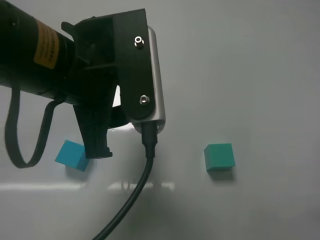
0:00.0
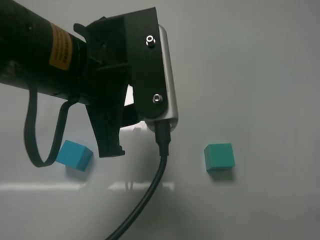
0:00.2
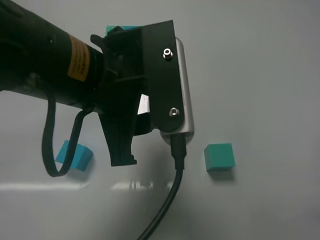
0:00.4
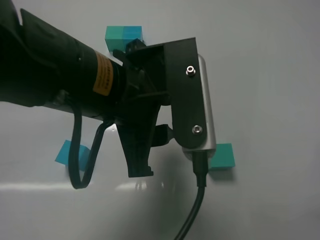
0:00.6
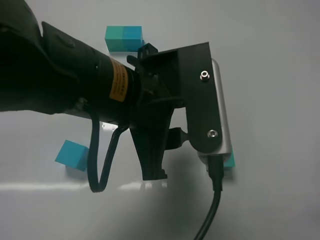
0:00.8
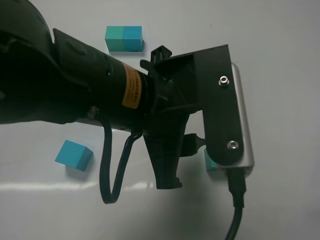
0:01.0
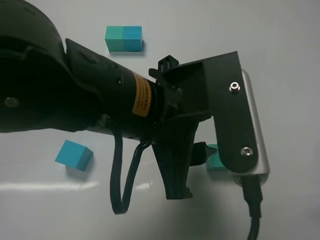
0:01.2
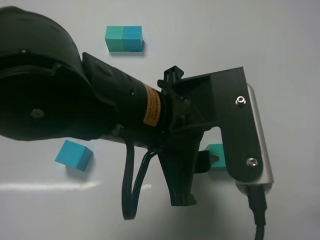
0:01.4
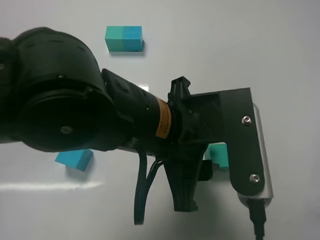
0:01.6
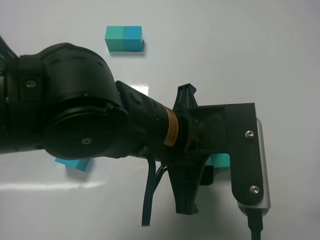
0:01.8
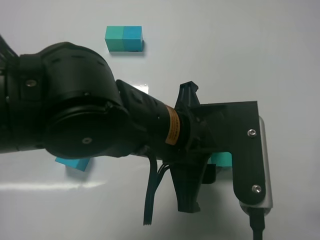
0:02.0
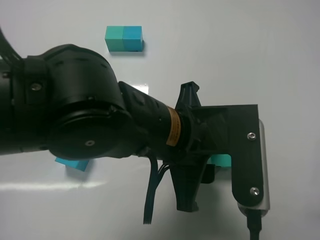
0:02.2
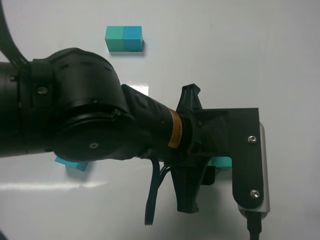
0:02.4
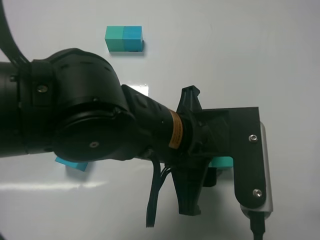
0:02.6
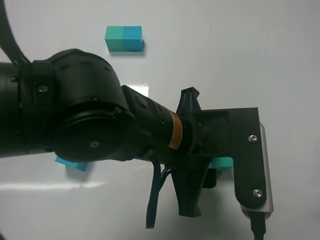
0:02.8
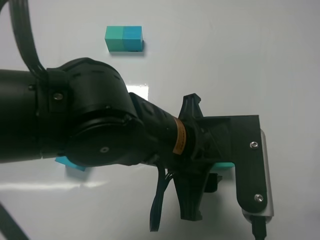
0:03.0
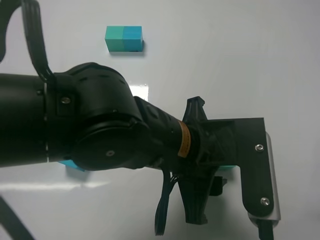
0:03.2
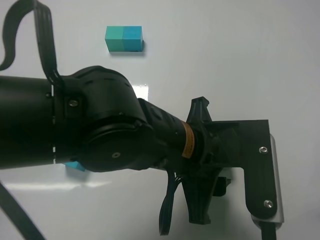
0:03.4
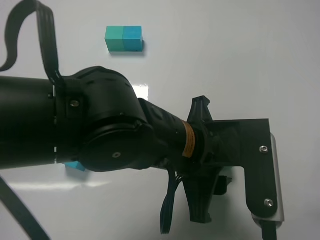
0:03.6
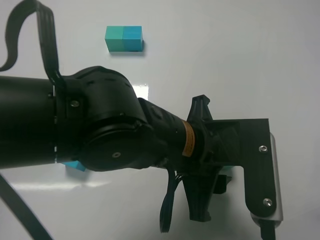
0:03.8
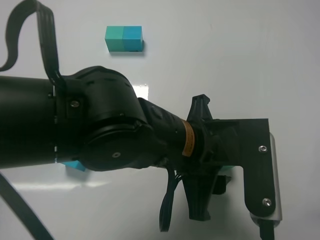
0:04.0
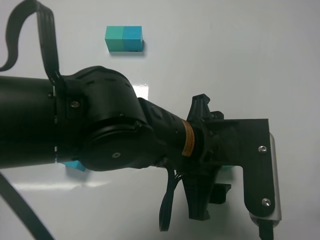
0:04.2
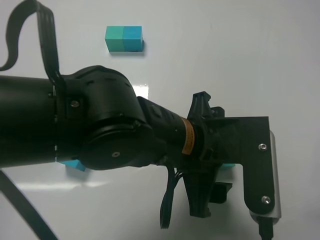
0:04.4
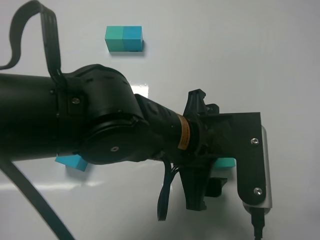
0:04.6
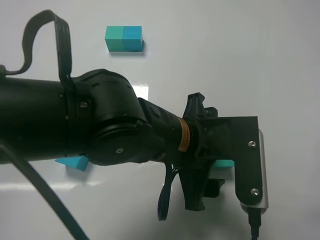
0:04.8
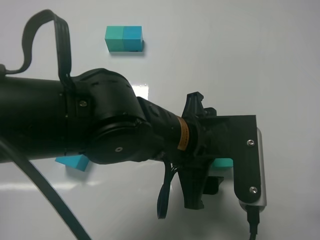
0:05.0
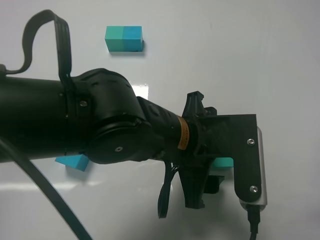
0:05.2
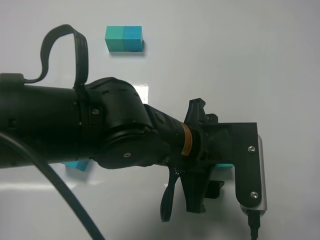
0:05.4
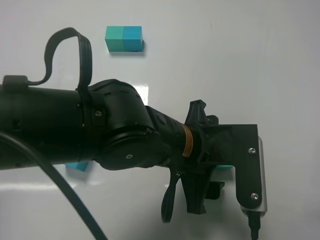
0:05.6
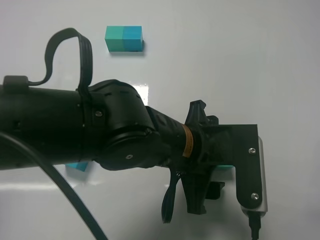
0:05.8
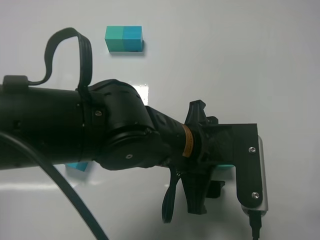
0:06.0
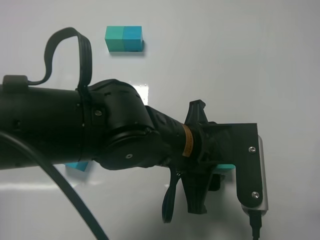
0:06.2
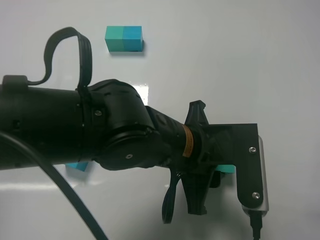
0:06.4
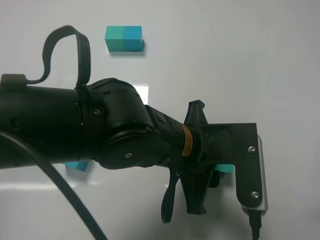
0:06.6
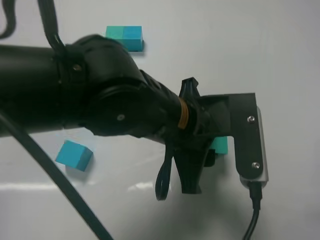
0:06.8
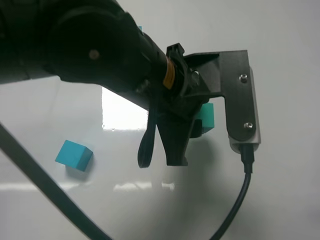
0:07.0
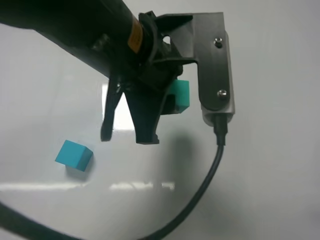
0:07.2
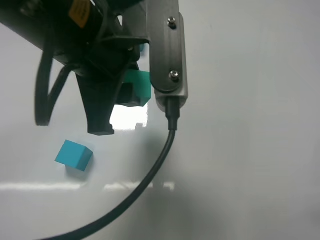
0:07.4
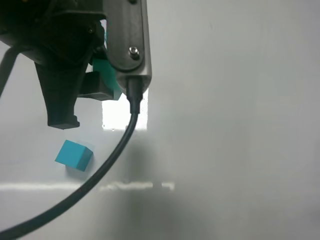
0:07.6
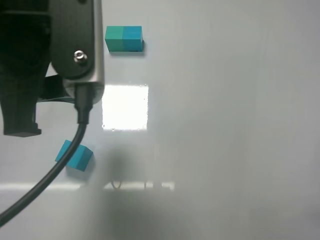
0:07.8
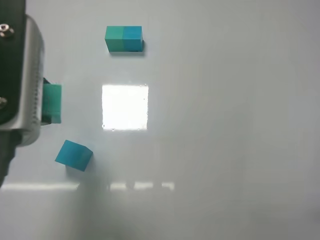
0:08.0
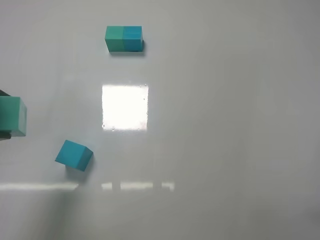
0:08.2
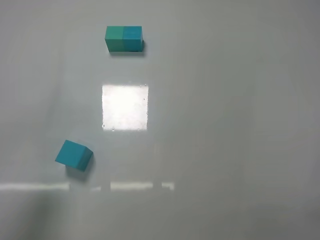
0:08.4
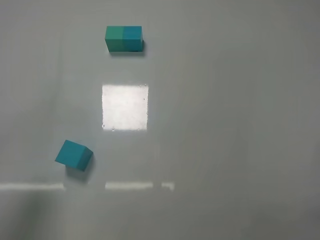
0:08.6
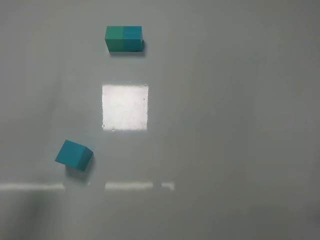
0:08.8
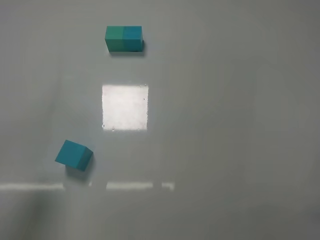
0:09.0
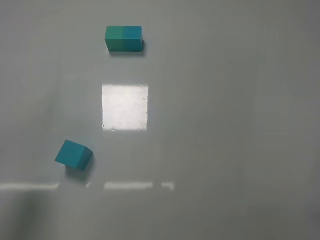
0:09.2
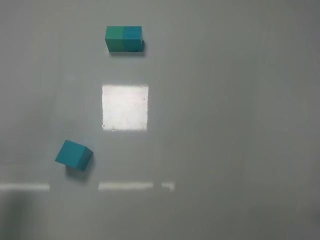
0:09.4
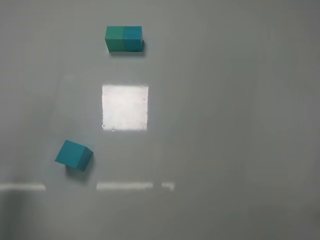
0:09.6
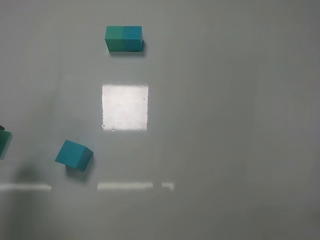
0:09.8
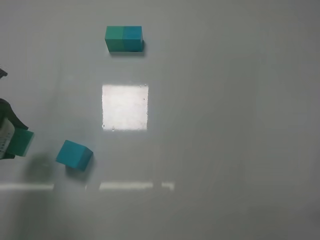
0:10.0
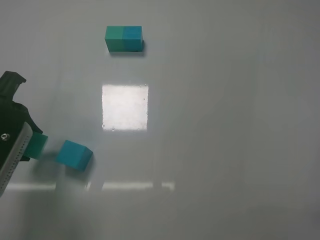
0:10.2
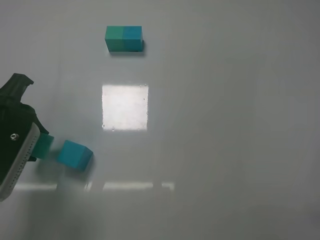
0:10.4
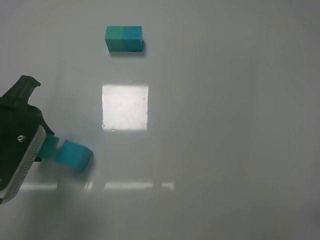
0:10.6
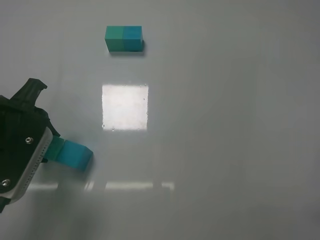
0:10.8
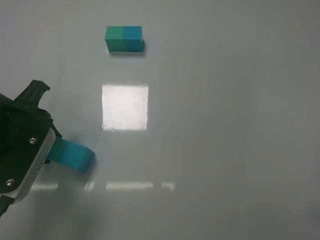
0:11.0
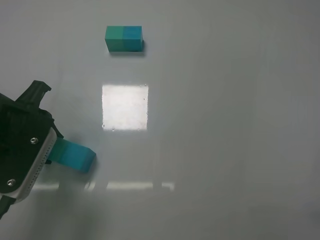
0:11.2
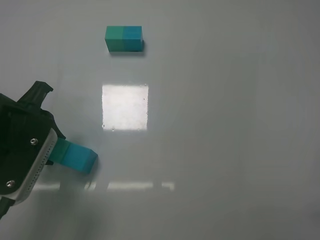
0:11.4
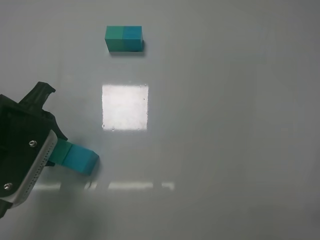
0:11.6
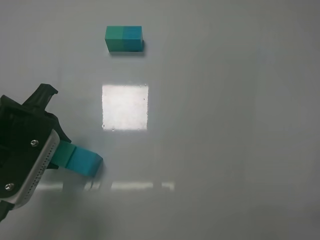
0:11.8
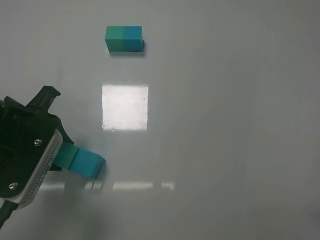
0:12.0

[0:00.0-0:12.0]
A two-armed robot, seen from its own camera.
Task of the whole recording: According to the building block template in front, assemble the scattered blocks together.
Step, 0:00.0 to 0:06.4: Grasp the green block with left gripper.
0:00.0 to 0:01.6: The left gripper is displaced to the right and downward by about 10 cm.
0:03.0 to 0:04.4: The left gripper opens up.
0:04.4 to 0:06.0: The grippers make only small movements.
0:06.0 to 0:07.6: The left gripper is displaced upward and to the left by approximately 20 cm, and closes up.
0:07.6 to 0:09.0: The left gripper is displaced to the left and backward by about 15 cm.
0:09.0 to 0:10.4: The left gripper moves forward and downward, some 10 cm.
0:10.4 to 0:12.0: There are only small adjustments of the grippers.

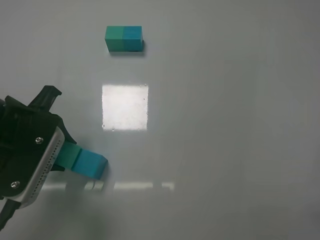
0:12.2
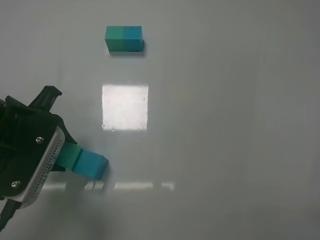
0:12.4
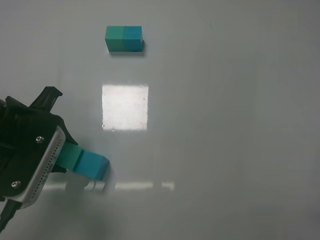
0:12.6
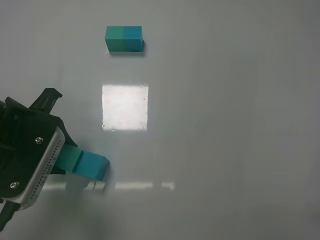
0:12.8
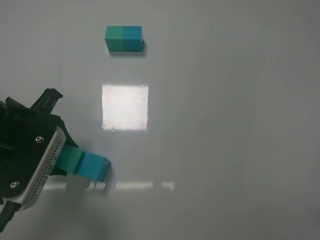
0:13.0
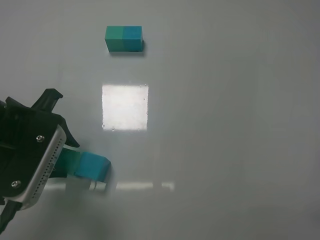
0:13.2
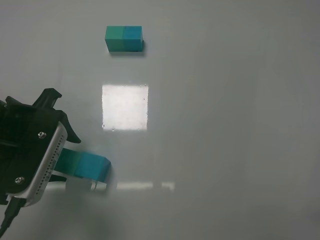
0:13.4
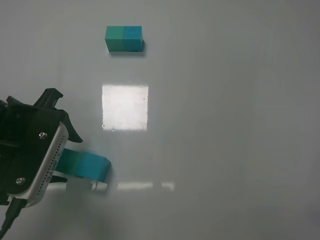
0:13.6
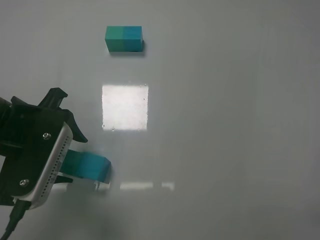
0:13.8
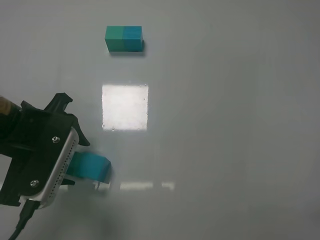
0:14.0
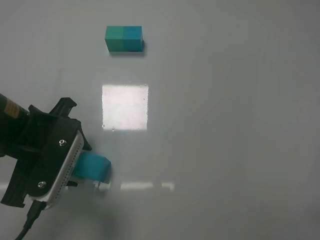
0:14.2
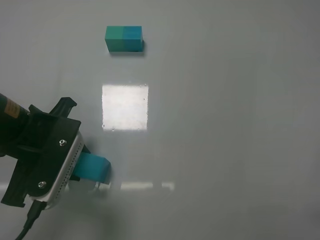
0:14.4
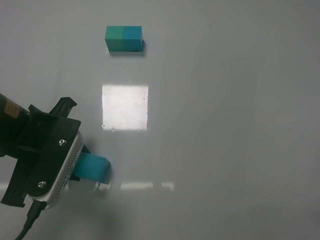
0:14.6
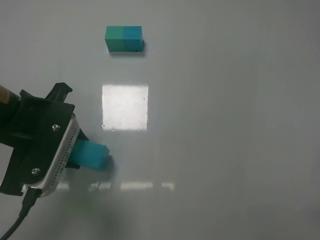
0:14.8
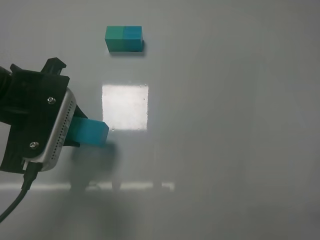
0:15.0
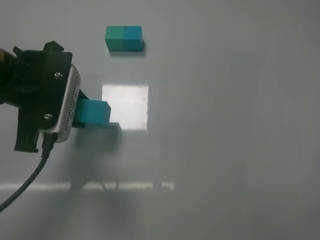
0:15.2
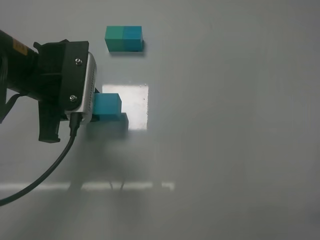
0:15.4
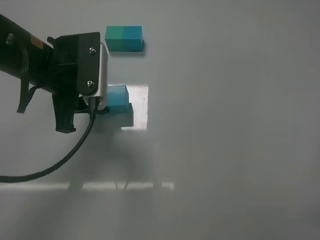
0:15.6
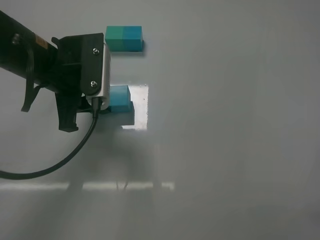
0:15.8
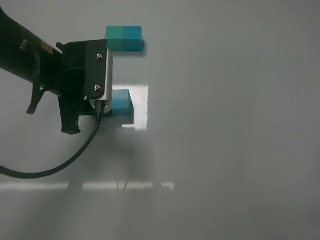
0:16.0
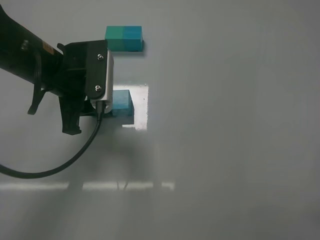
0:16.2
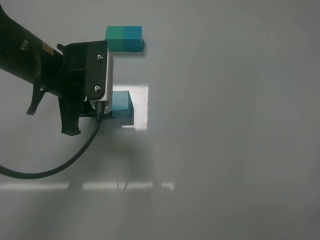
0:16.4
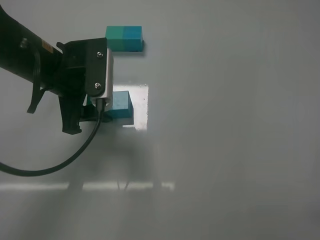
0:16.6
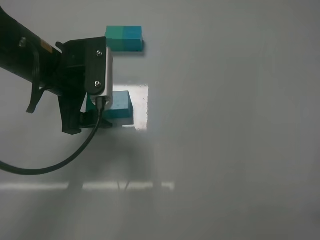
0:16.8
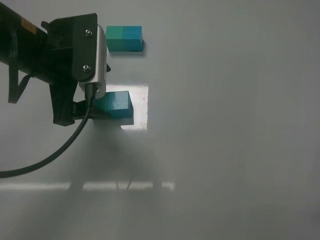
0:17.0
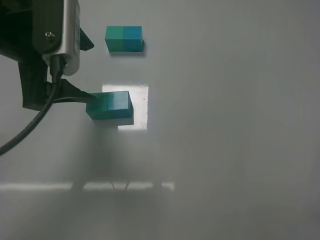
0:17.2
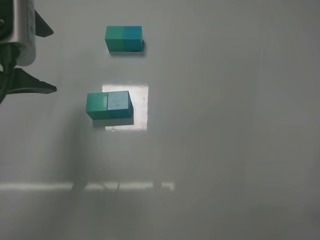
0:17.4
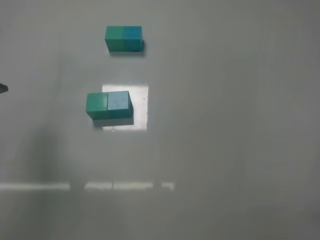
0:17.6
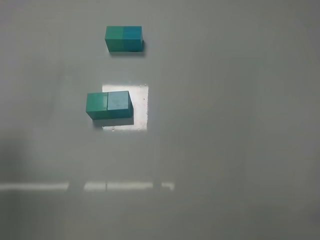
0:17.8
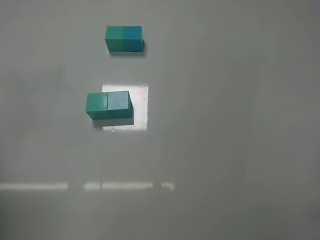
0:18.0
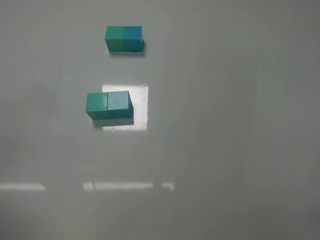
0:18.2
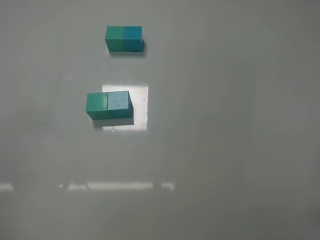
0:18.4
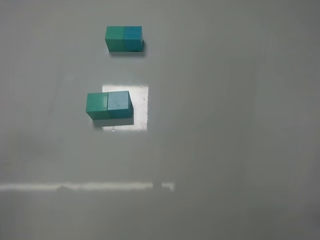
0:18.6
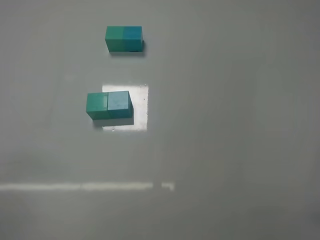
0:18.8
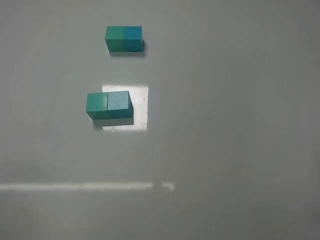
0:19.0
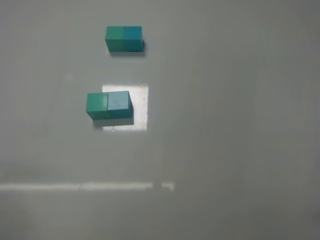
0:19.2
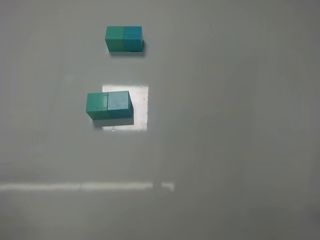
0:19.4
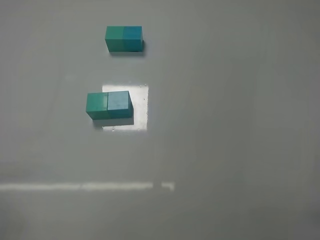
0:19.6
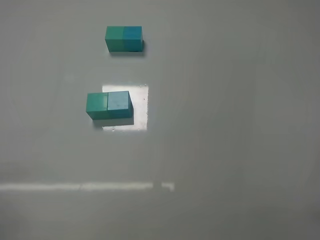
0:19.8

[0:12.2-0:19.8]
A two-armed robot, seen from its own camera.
Task of the whole recording: According to the building block template in front, assemble the scattered blocks together.
Step, 0:13.4 to 0:16.8: Put the blue cube and green cube in the center of the table with the left gripper.
0:12.2 to 0:13.8: The left gripper opens.
0:13.8 to 0:15.2: The left gripper ends up roughly 5 cm from where it was, and closes.
0:15.2 to 0:16.8: The left gripper ends up roughly 5 cm from where it was, and opens its fingers.
0:16.8 to 0:18.2: The left gripper moves backward and to the left, roughly 25 cm.

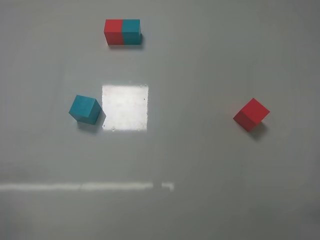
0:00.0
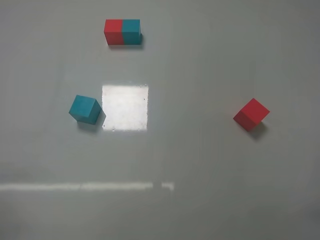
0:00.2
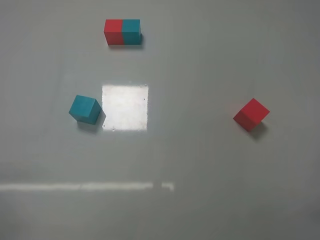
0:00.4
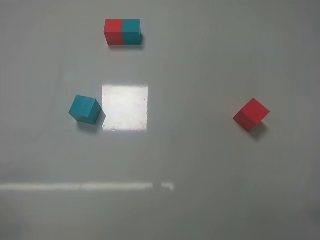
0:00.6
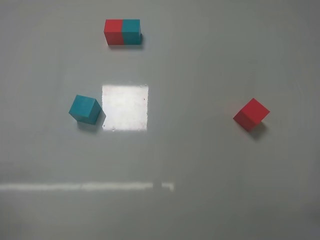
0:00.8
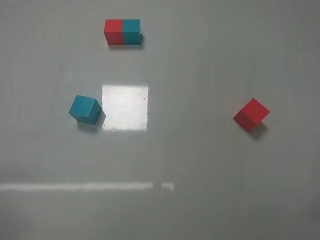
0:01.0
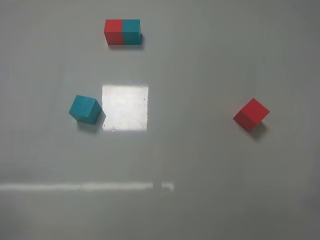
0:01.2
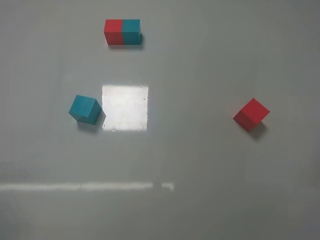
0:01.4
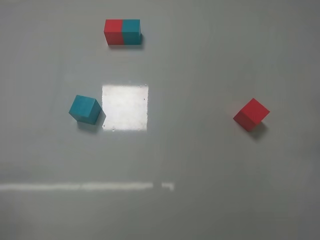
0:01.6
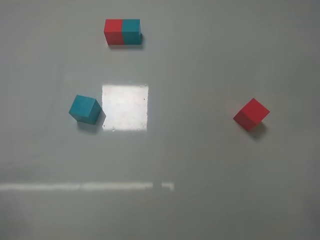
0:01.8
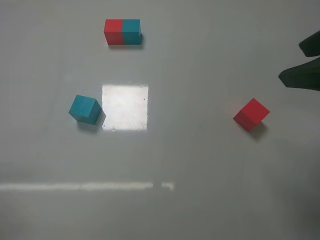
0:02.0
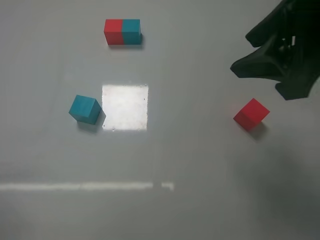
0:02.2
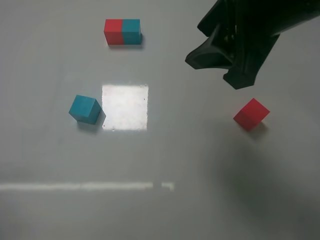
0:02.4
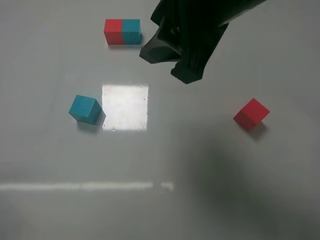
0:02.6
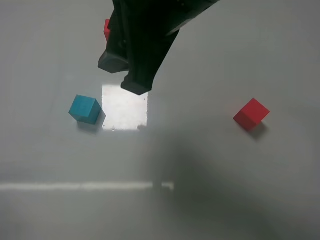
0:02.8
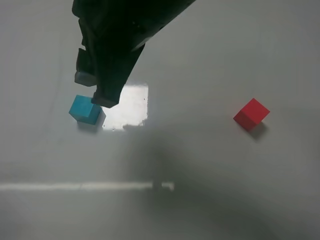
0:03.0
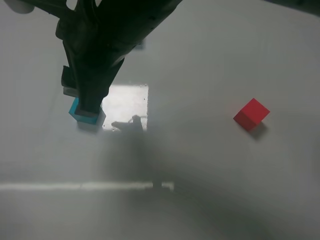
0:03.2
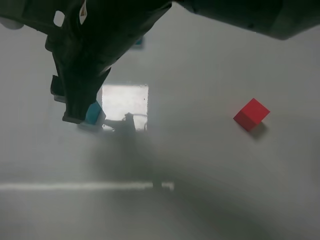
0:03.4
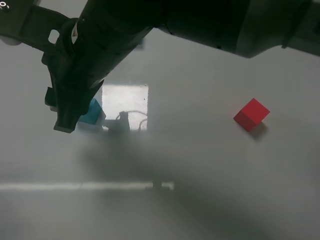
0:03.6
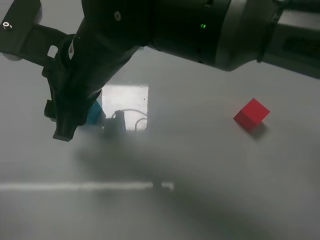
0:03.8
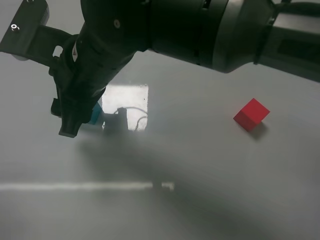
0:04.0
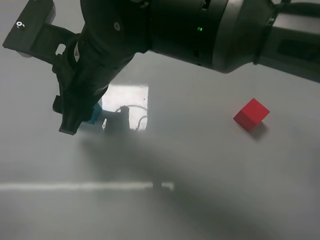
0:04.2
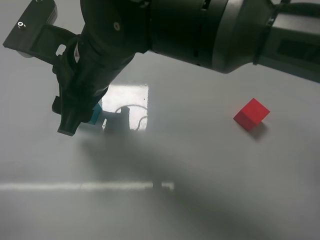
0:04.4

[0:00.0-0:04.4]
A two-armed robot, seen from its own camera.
Task of the whole recording: According to the building block template in front, assemble the scattered blocks together.
0:01.4 to 0:03.0: The right gripper moves to the left and forward, about 35 cm.
0:03.0 to 0:04.4: The right gripper shifts approximately 10 cm downward and to the left.
